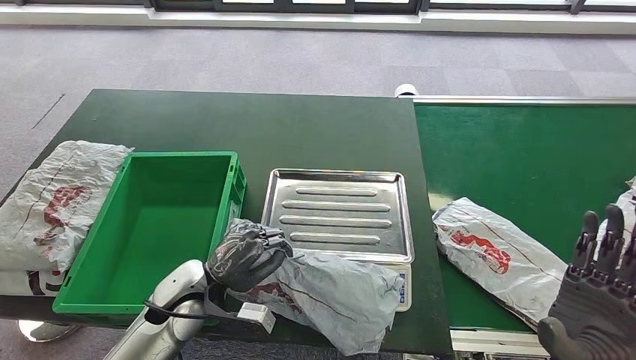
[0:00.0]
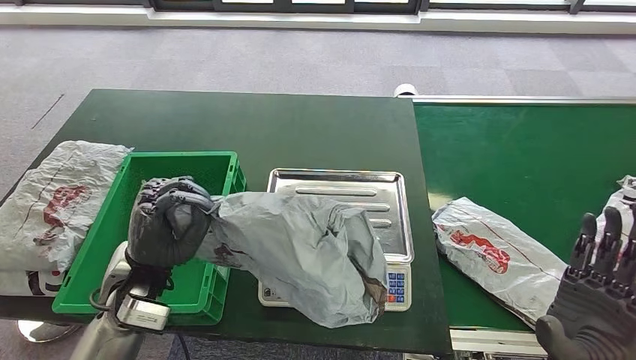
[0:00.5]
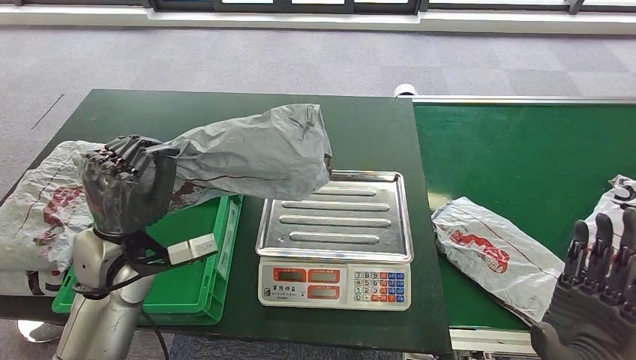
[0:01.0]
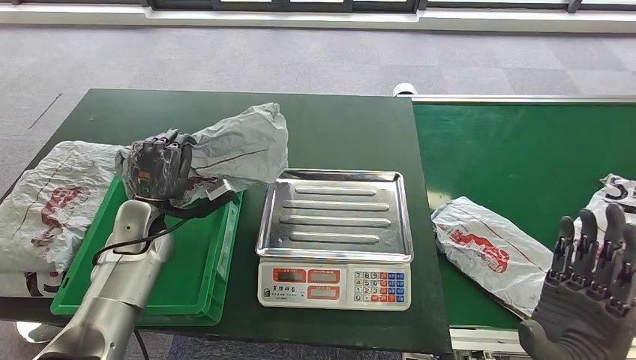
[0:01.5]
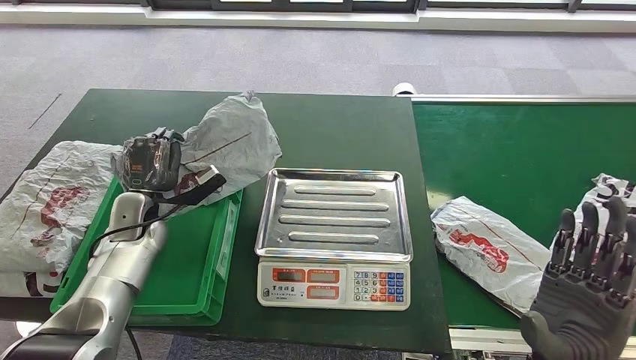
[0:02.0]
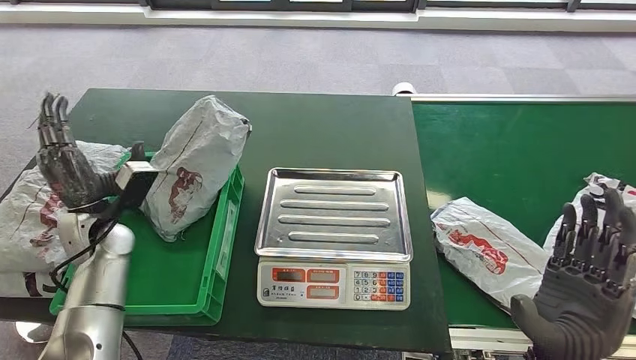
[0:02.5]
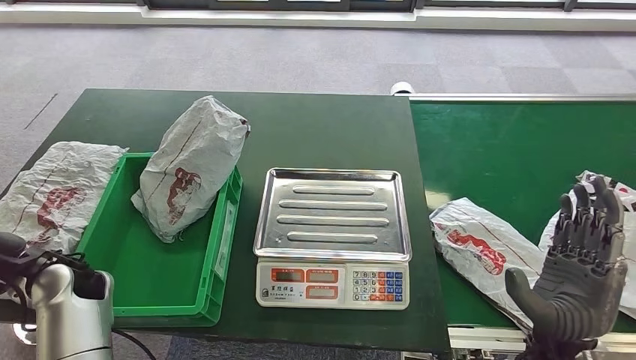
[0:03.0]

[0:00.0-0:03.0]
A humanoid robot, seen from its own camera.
Step, 0:00.5 to 0:03.0: Put the parcel inside the courier box.
